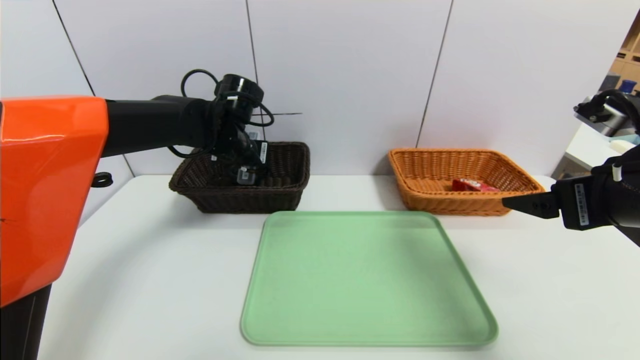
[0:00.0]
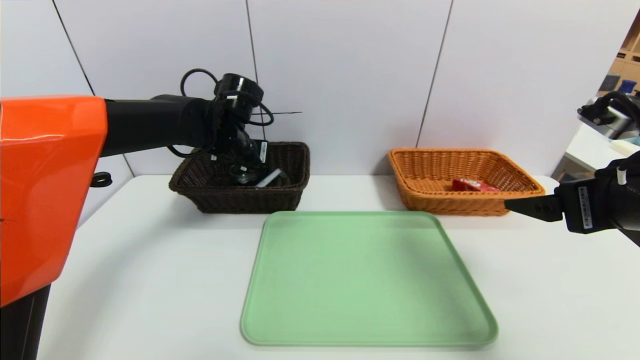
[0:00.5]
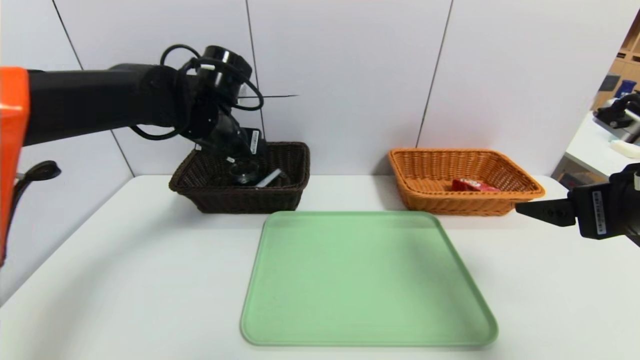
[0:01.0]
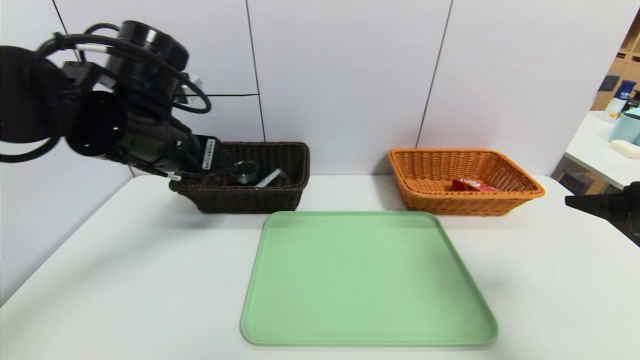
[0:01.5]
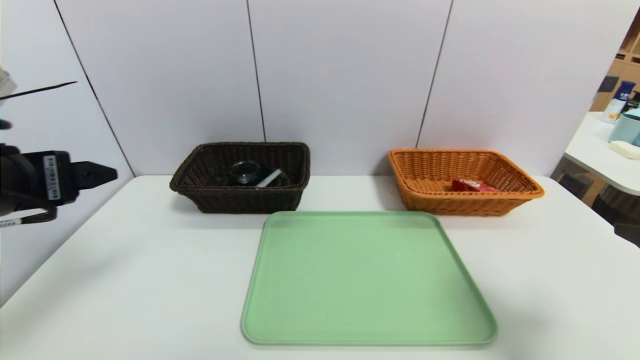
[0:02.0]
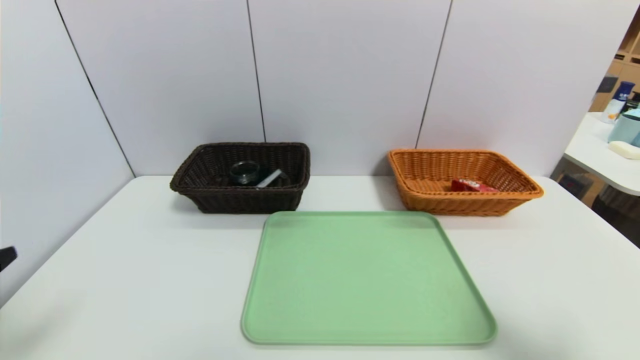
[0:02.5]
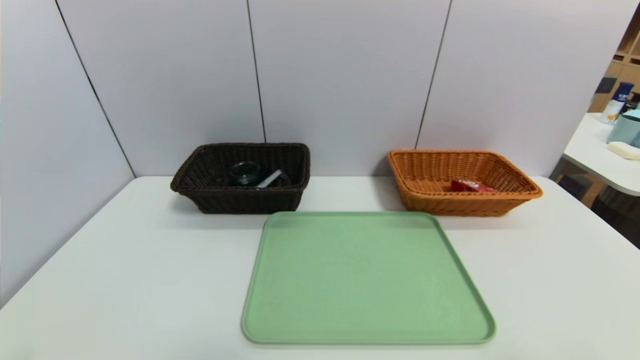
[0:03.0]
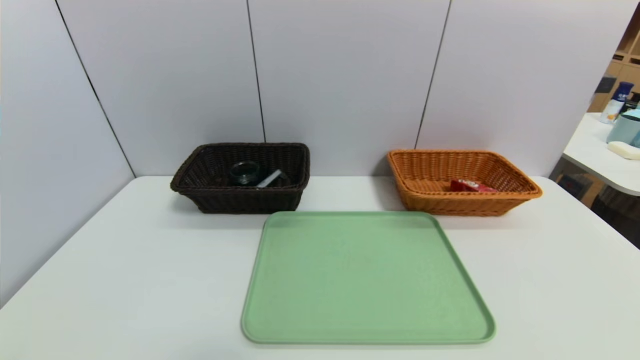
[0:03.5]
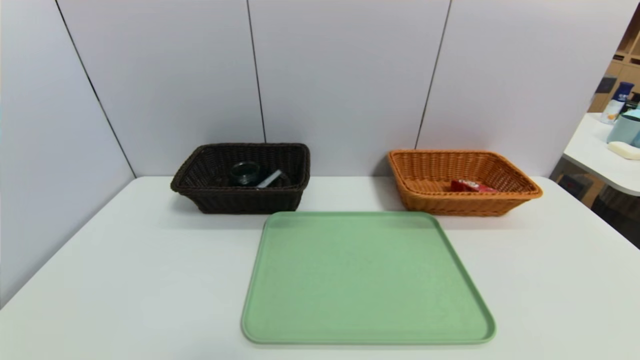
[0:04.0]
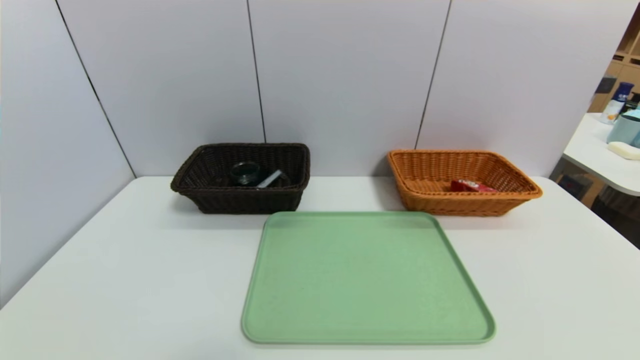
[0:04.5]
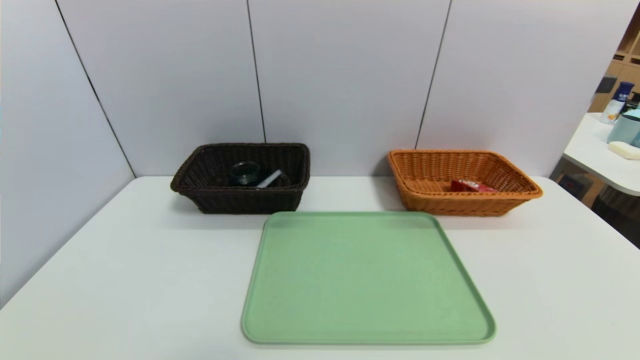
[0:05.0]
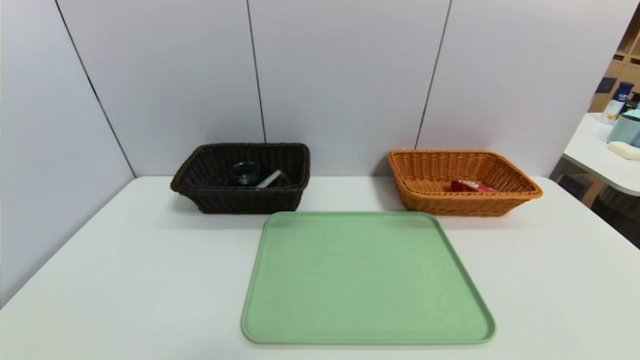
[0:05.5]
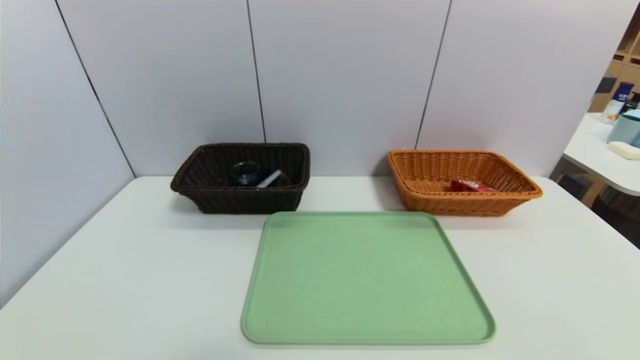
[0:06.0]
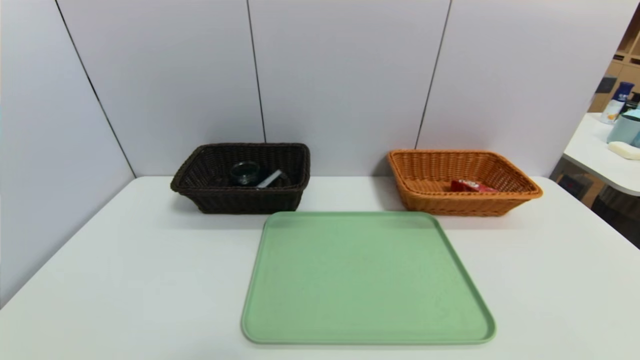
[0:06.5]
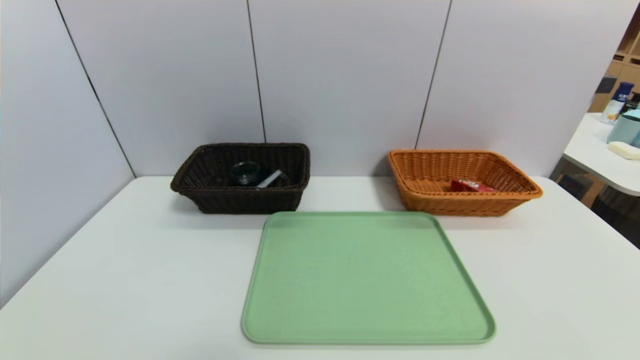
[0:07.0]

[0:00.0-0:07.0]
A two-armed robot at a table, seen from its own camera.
Task of the whole recording: place the food in the right basket with the right gripper, and place the non food items in the left basket with the left gripper.
0:00.0 to 0:02.0: The left gripper goes approximately 30 cm backward and to the left, and opens its fingers, while the right gripper moves backward and to the right, about 10 cm.
0:02.0 to 0:03.5: The left gripper goes approximately 20 cm backward and downward, while the right gripper is displaced backward by some 15 cm.
